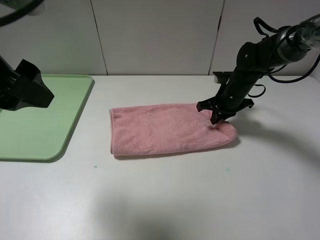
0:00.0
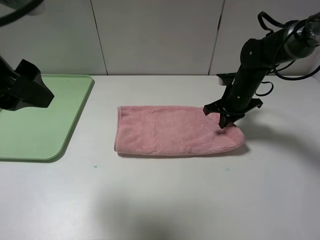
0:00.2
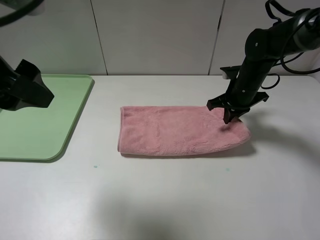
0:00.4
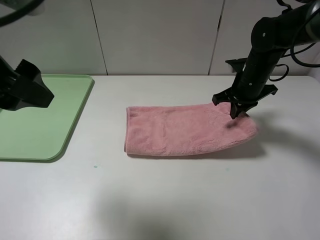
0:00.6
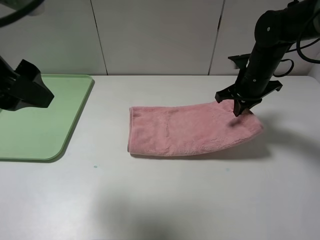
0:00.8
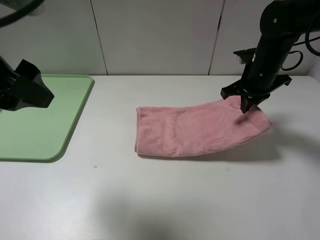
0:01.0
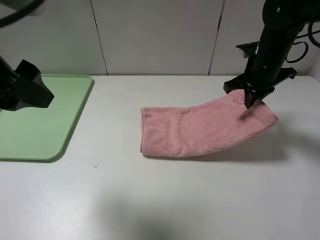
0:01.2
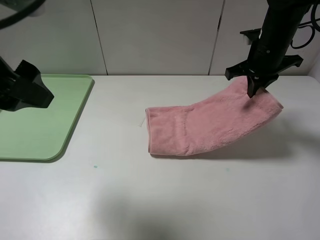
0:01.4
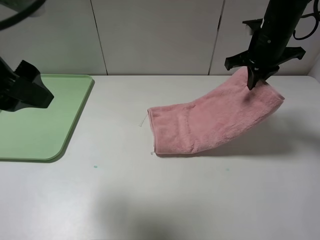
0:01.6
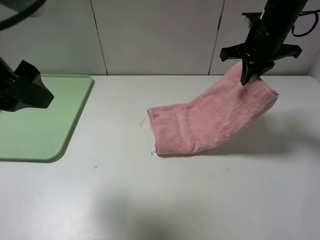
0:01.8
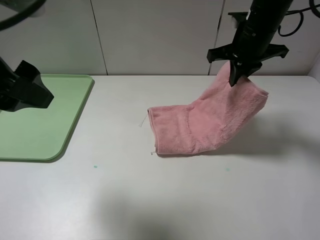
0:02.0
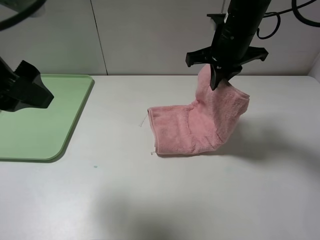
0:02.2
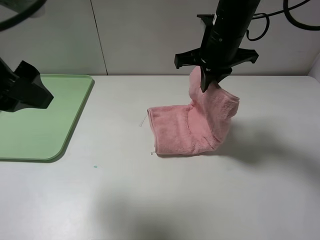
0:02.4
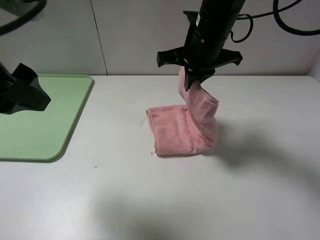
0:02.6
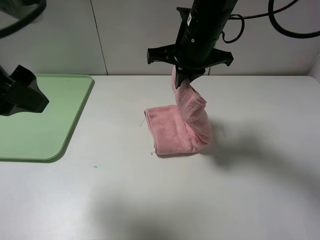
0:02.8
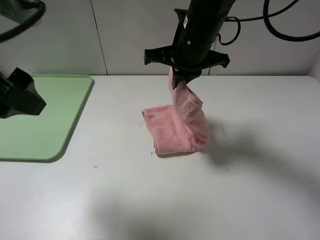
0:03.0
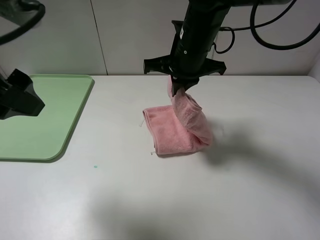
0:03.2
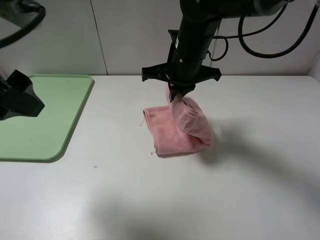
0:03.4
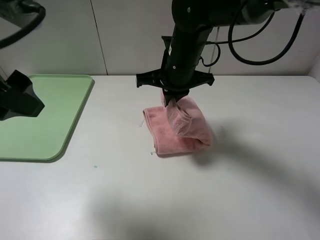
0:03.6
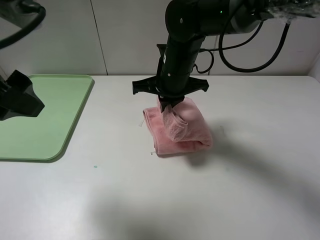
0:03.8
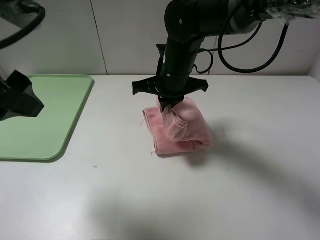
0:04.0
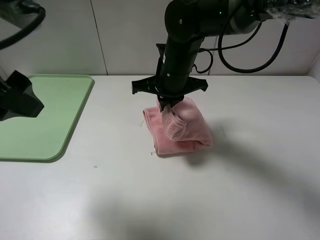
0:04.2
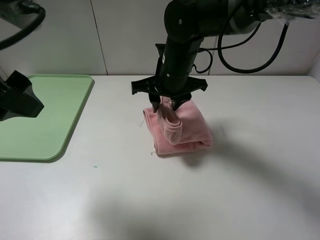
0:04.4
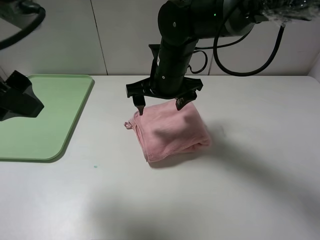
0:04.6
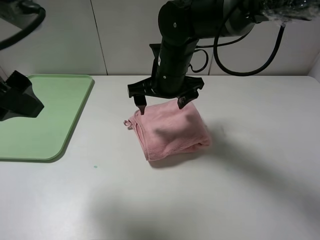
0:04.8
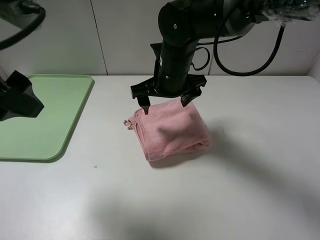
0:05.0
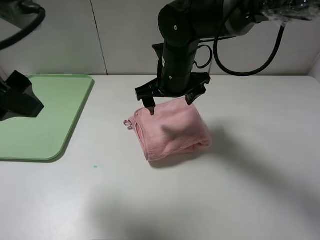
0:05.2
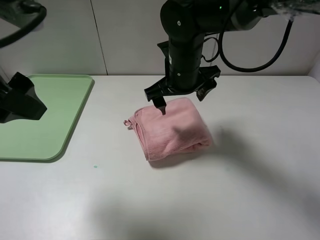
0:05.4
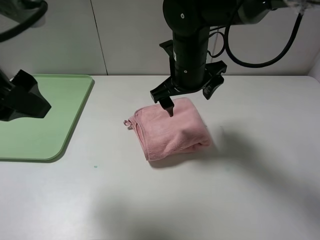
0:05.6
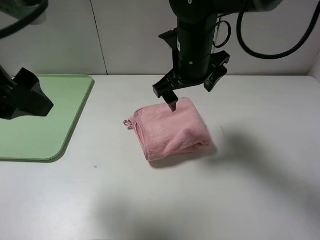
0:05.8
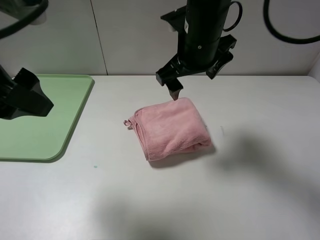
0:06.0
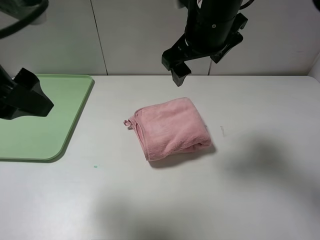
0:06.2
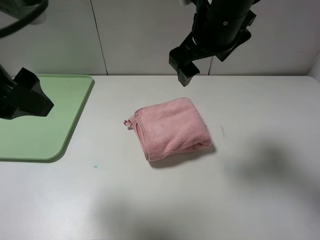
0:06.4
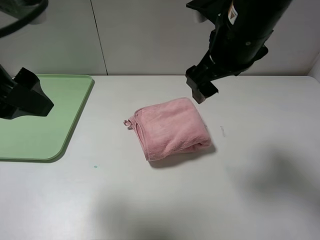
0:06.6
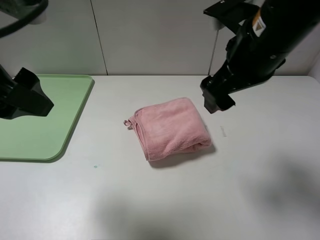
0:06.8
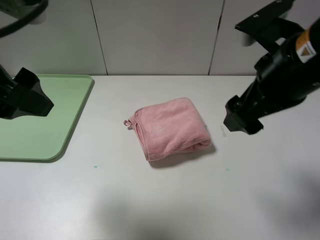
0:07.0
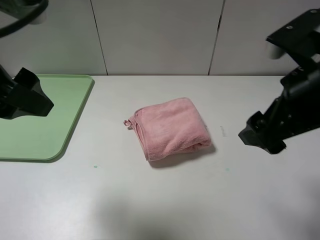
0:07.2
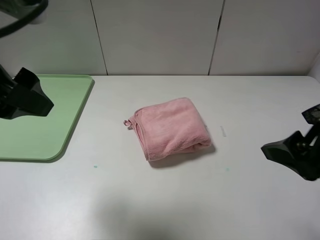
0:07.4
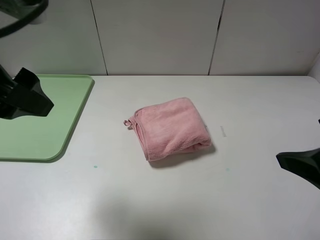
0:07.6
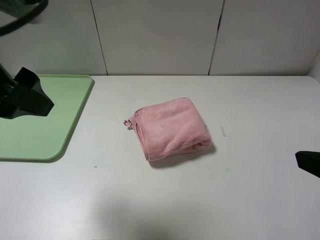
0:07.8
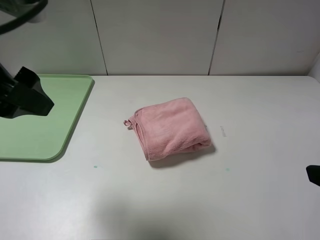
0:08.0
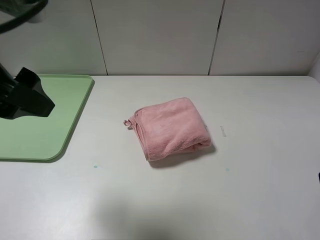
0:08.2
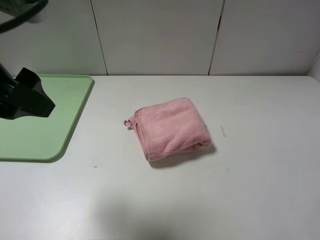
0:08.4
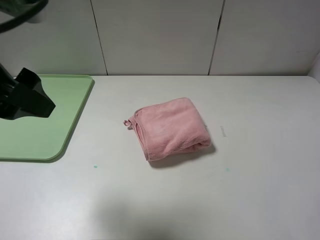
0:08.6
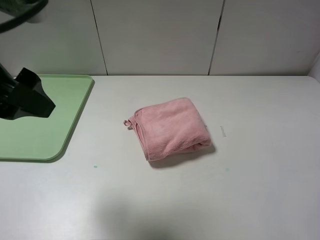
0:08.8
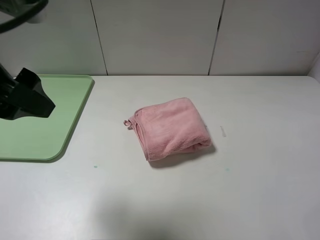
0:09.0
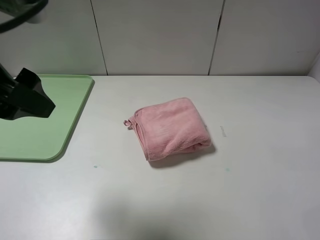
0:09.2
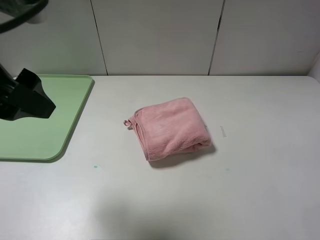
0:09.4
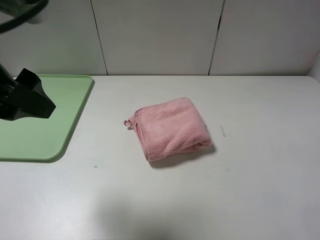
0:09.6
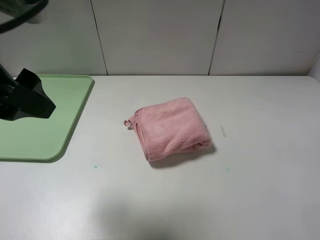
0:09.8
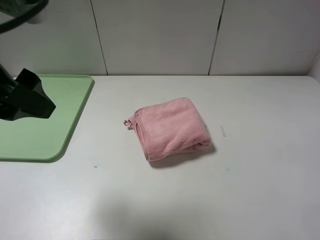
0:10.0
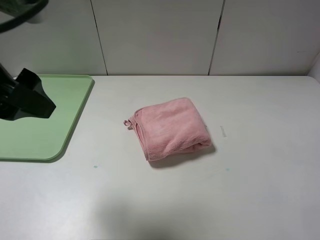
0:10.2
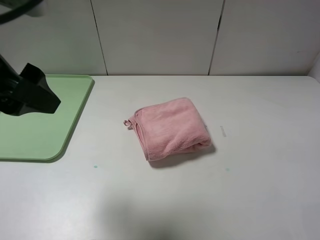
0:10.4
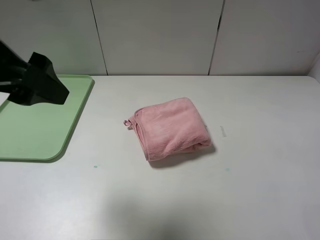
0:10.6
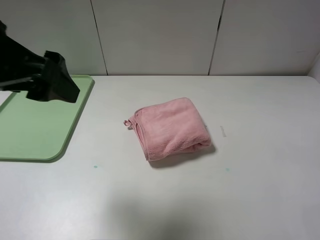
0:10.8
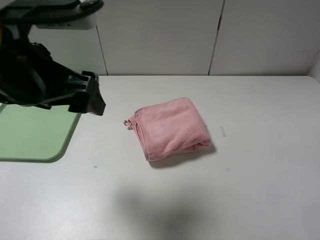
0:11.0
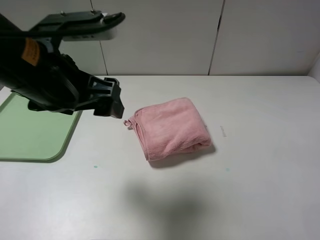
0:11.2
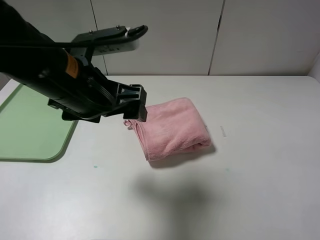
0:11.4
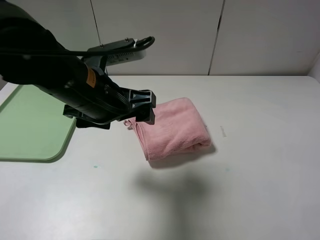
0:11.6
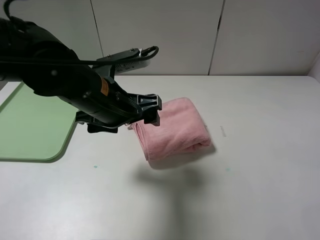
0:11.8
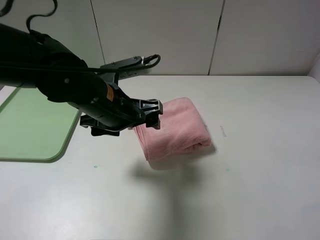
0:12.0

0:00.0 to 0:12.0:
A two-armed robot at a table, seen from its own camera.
Step, 0:00.0 to 0:04.4: Fold the pink towel from right to left with right gripper.
0:00.0 to 0:01.6: The right gripper moves upward, approximately 15 cm.
0:01.6 to 0:03.0: The right gripper shifts about 15 cm to the left.
0:03.0 to 0:04.4: The right gripper shifts roughly 5 cm downward, and opens its fingers.
0:04.4 to 0:06.0: The right gripper is displaced upward by some 10 cm.
0:06.0 to 0:07.6: The right gripper shifts roughly 30 cm backward and to the right.
0:07.6 to 0:09.0: The right gripper goes some 10 cm backward and to the right.
0:10.4 to 0:12.0: The left gripper shifts roughly 20 cm downward, to the right and forward.

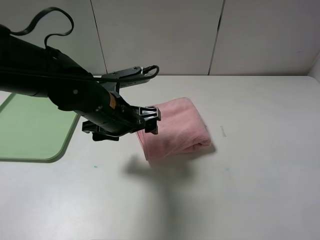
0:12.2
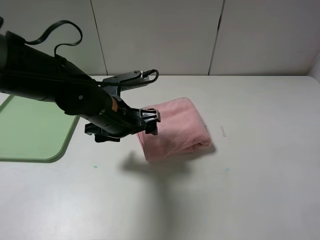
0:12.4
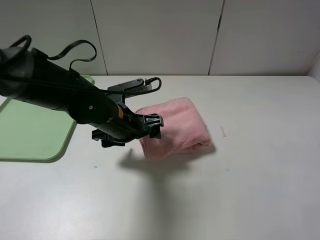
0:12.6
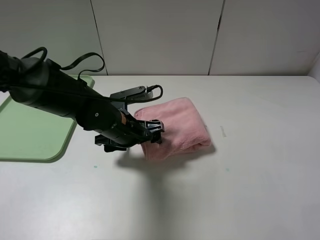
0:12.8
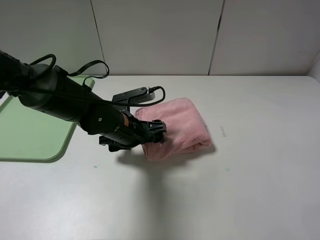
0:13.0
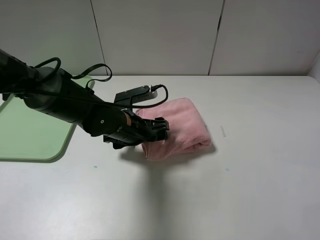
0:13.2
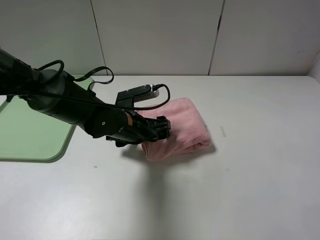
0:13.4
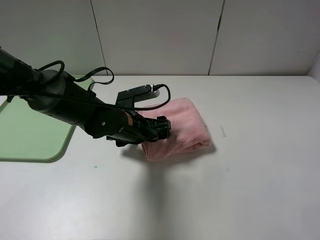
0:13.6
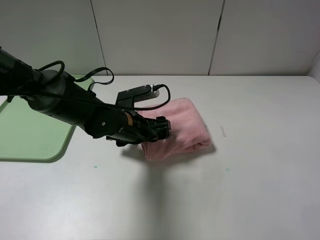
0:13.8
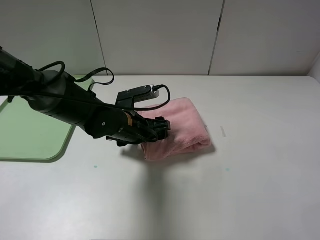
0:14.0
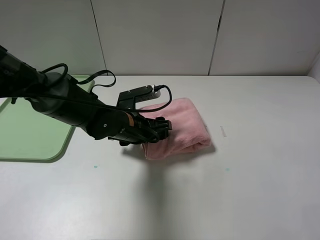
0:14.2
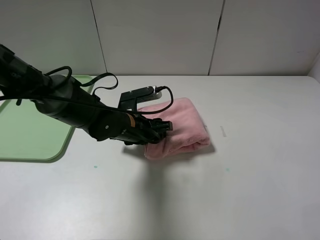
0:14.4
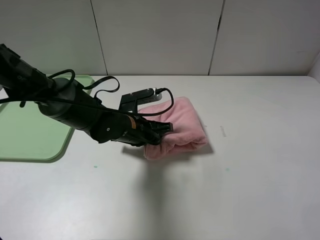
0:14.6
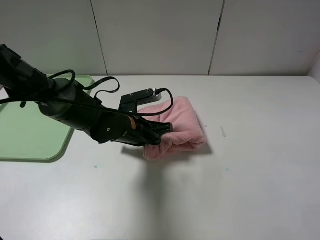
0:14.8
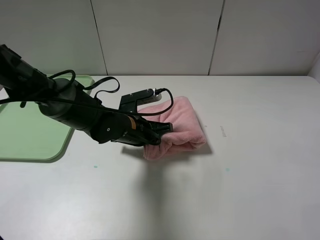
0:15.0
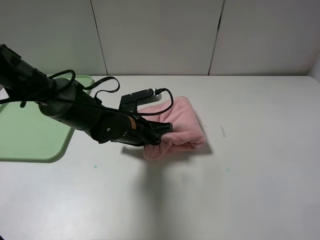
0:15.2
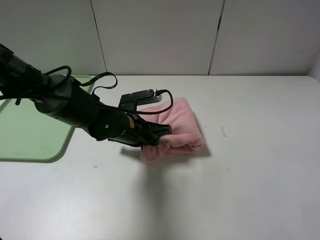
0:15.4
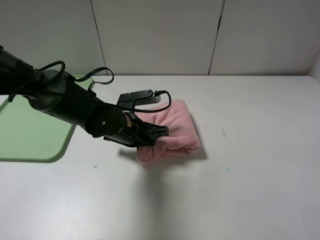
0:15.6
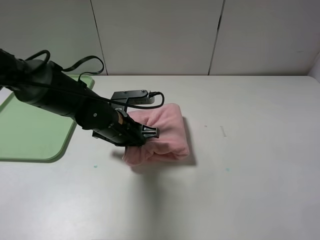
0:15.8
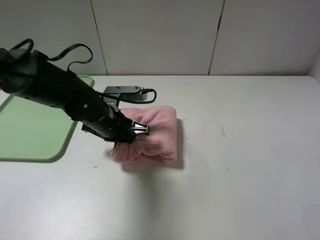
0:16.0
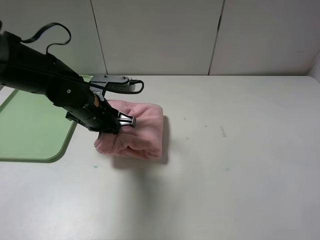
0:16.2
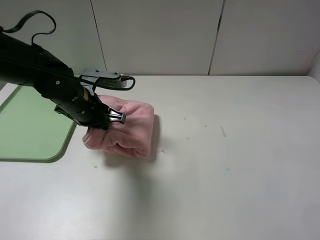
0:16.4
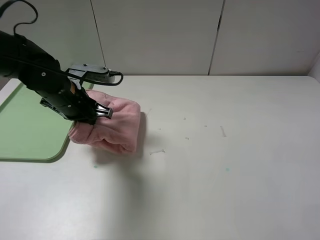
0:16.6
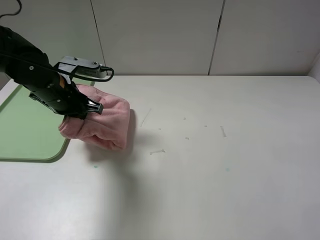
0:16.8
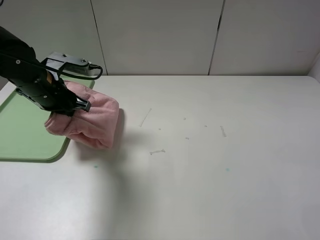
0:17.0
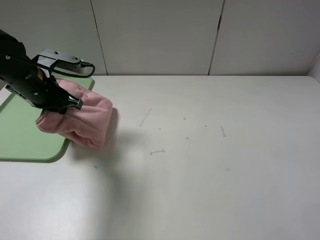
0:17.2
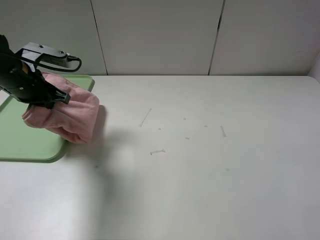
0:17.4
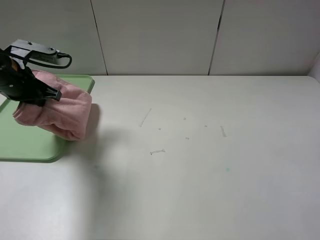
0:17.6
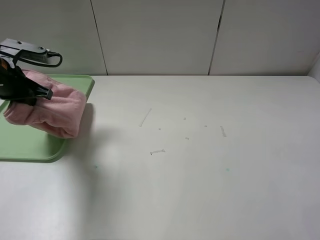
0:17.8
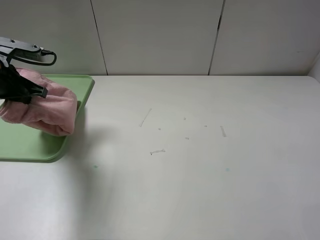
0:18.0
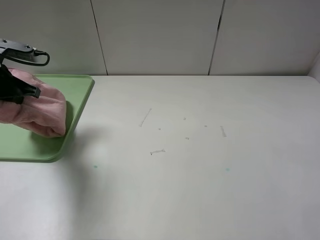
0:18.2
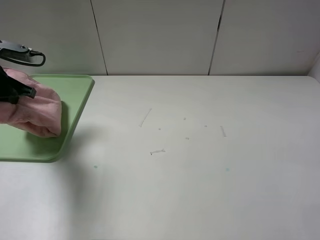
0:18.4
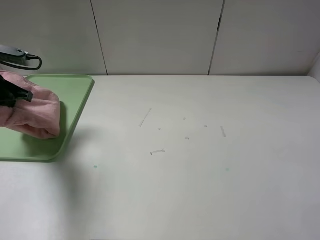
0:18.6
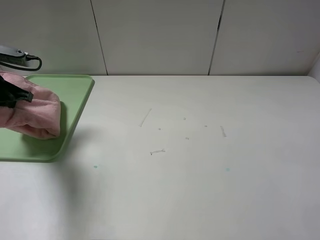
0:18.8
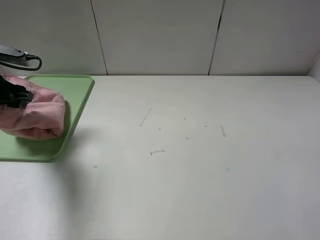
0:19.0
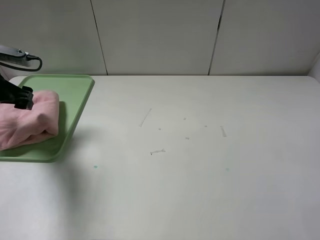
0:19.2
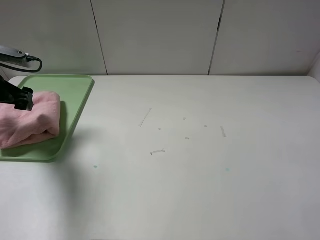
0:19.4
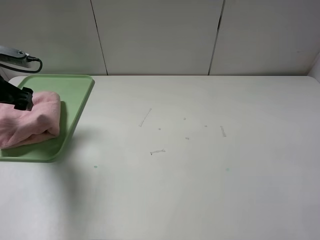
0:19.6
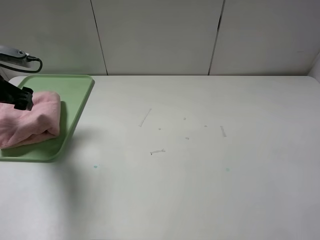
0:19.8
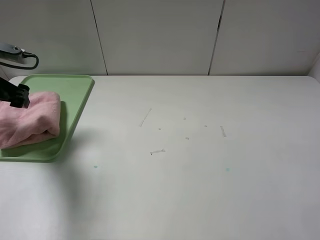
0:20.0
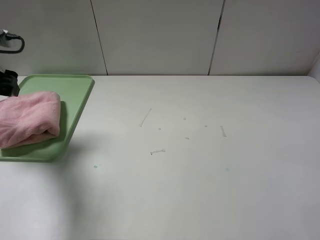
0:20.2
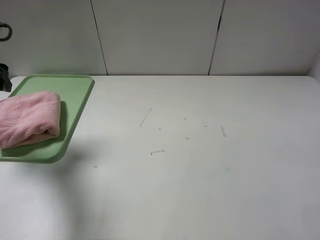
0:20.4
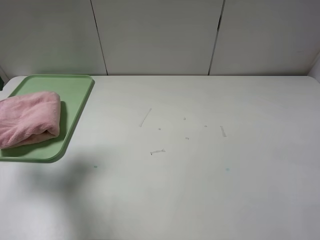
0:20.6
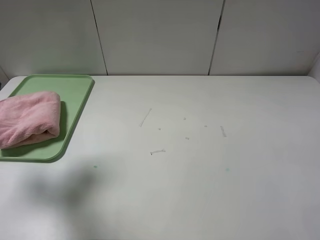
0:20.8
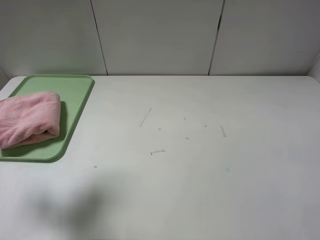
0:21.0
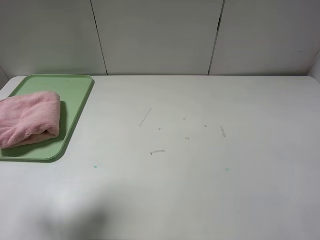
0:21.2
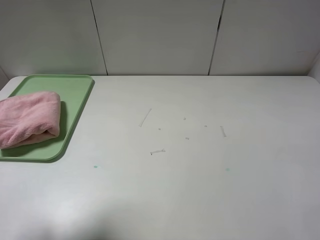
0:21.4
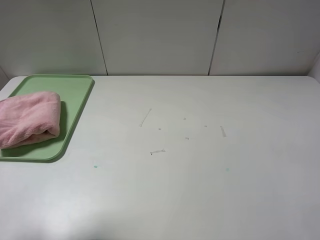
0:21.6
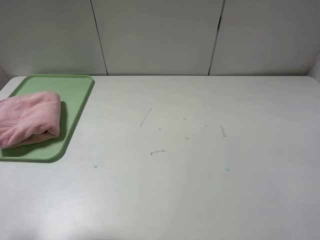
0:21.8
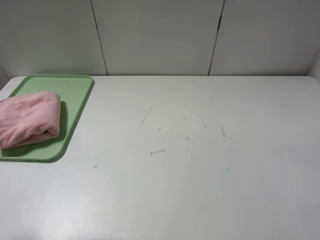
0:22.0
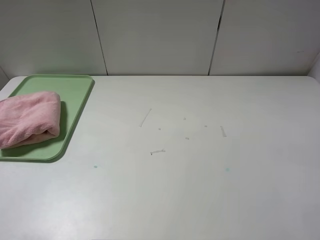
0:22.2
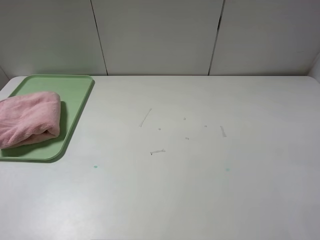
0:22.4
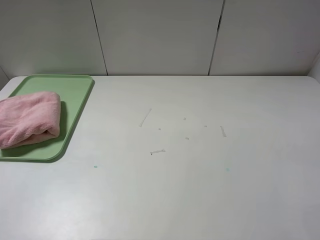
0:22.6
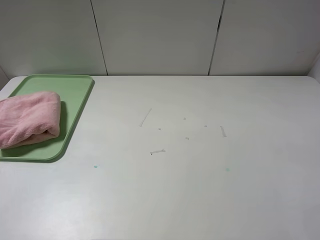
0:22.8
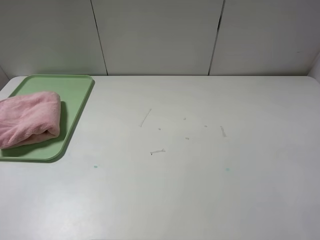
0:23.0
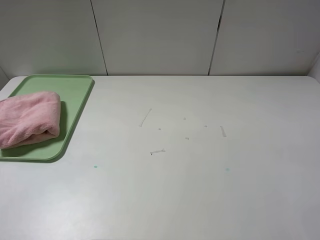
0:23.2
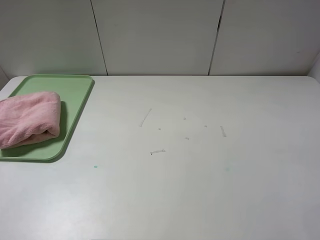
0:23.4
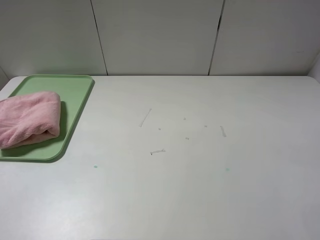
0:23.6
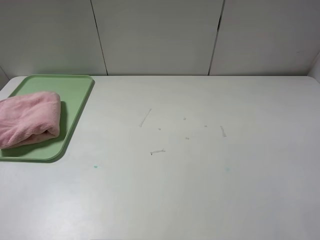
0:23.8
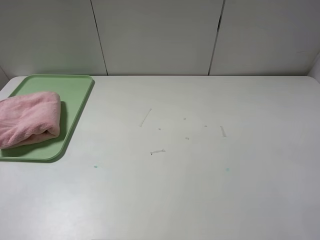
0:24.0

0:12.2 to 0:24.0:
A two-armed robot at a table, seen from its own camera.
Step, 0:12.2 to 0:19.2: Place the folded pink towel on the tray with the left gripper.
0:12.2 to 0:13.6: The left gripper goes about 5 cm downward.
0:13.6 to 0:15.2: The left gripper closes up.
0:15.2 to 0:16.6: The left gripper goes roughly 15 cm to the left and upward.
0:16.6 to 0:18.2: The left gripper shifts roughly 15 cm to the left.
0:18.2 to 0:19.6: The left gripper opens.
0:19.6 to 0:21.0: The left gripper heads backward and upward, covering some 20 cm.
0:21.0 to 0:22.6: The left gripper shifts approximately 15 cm backward.
